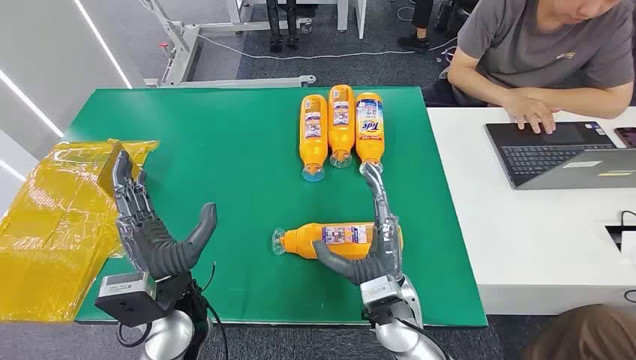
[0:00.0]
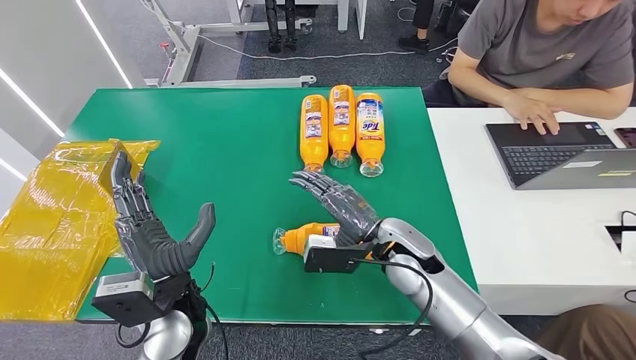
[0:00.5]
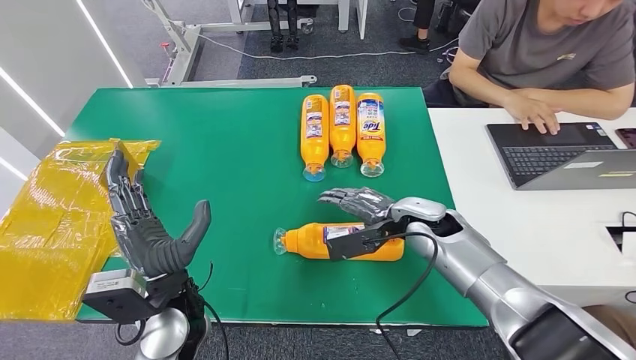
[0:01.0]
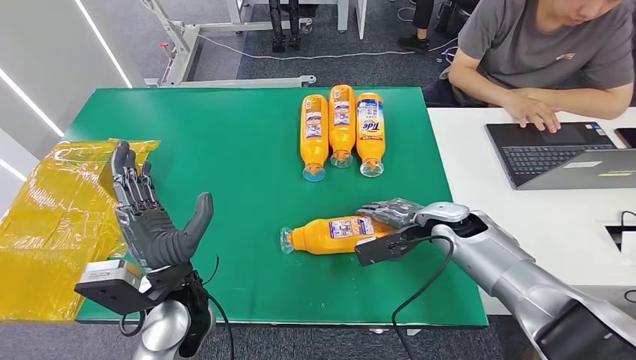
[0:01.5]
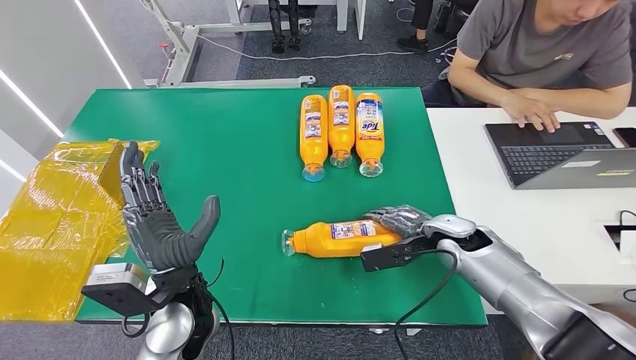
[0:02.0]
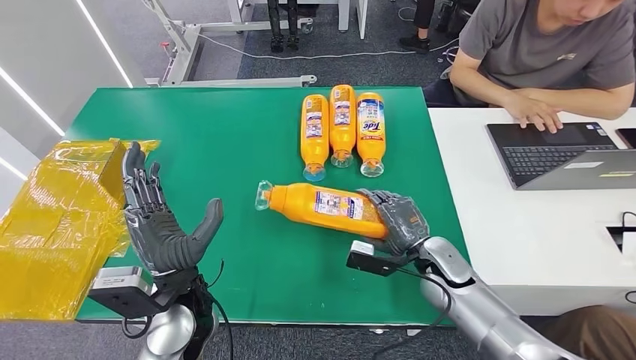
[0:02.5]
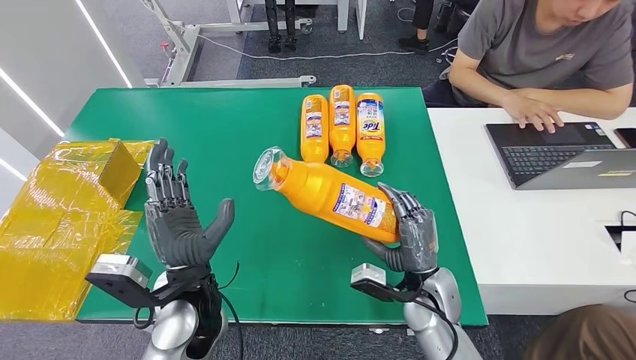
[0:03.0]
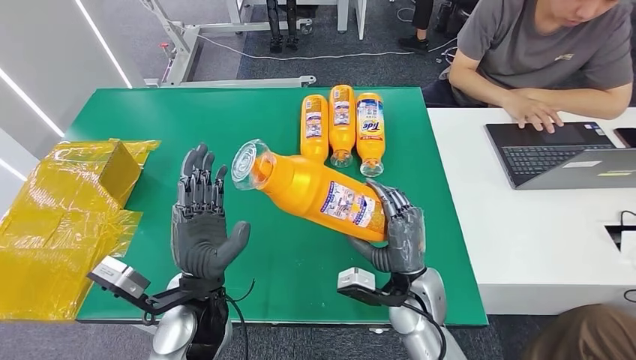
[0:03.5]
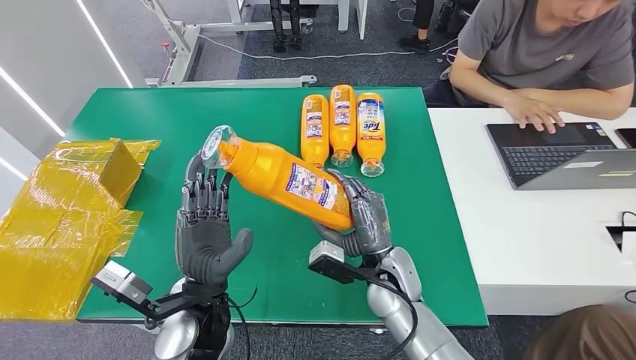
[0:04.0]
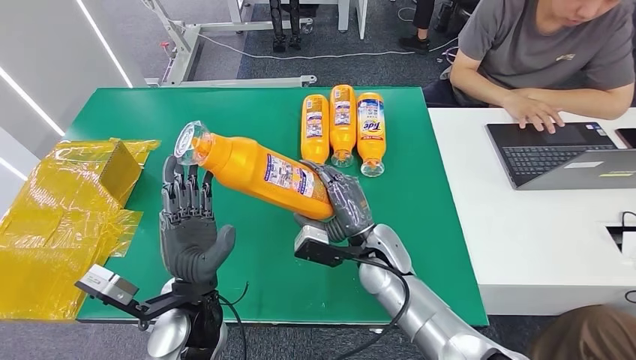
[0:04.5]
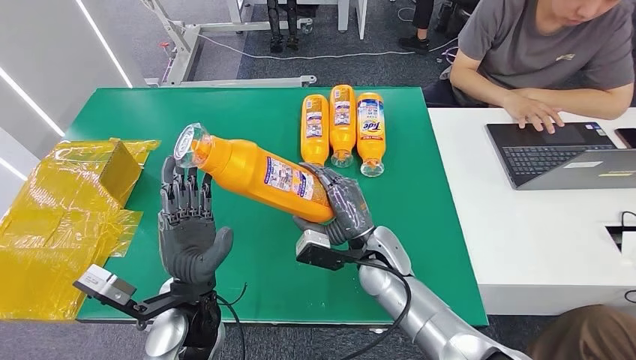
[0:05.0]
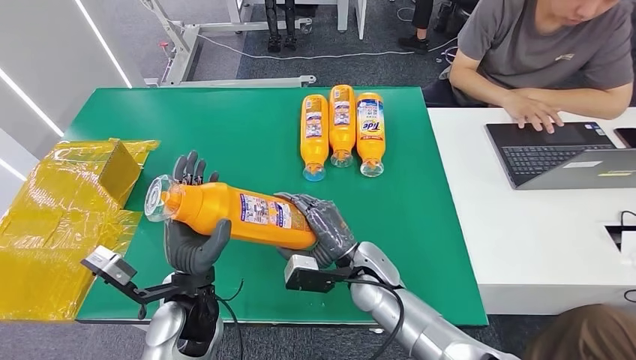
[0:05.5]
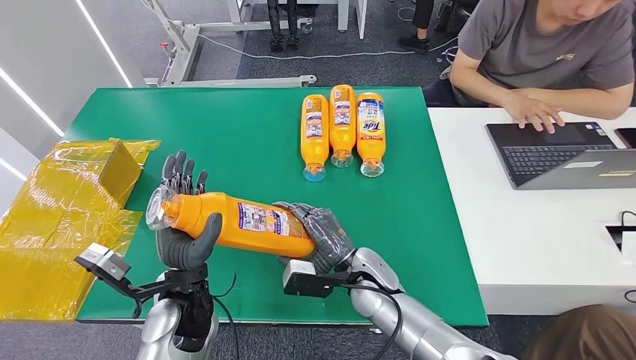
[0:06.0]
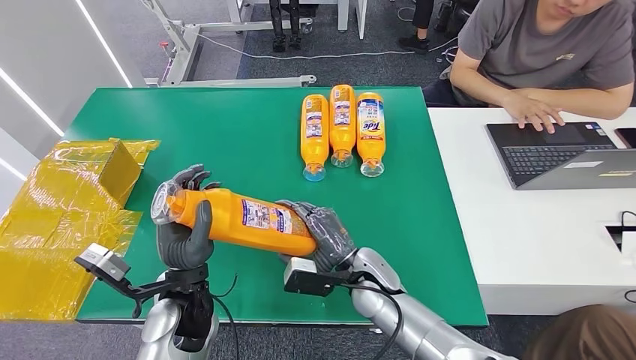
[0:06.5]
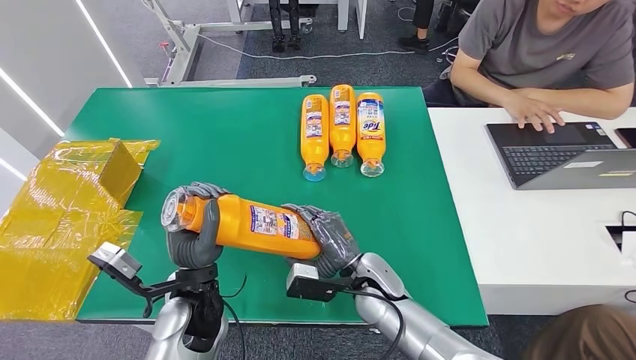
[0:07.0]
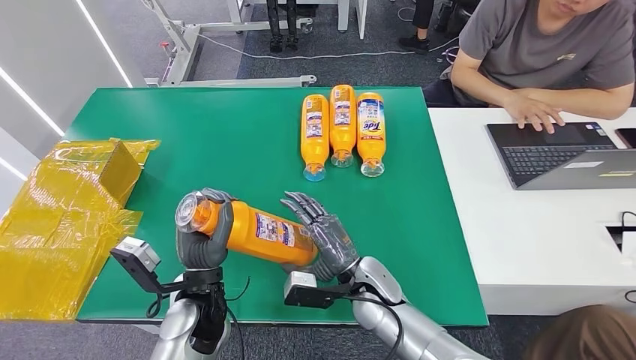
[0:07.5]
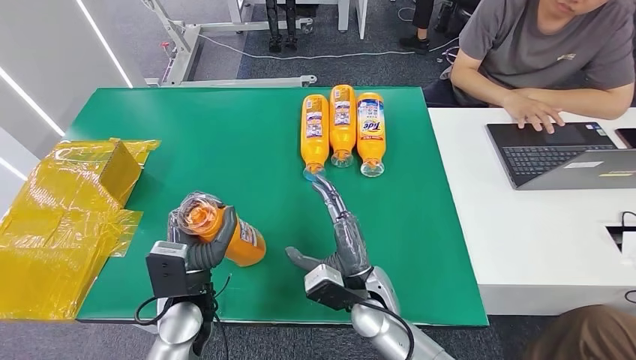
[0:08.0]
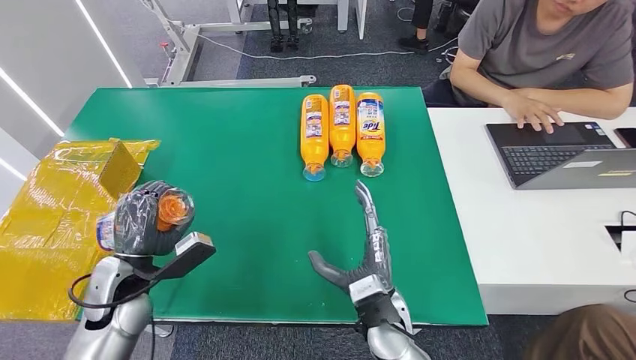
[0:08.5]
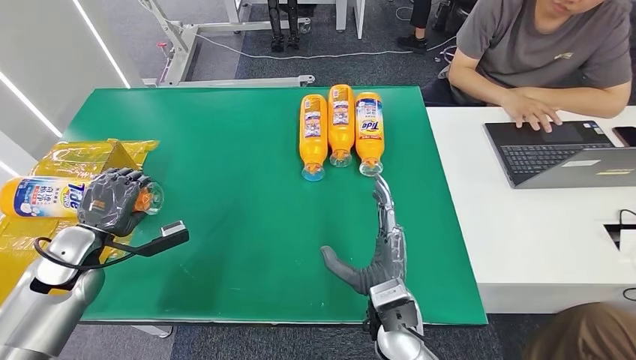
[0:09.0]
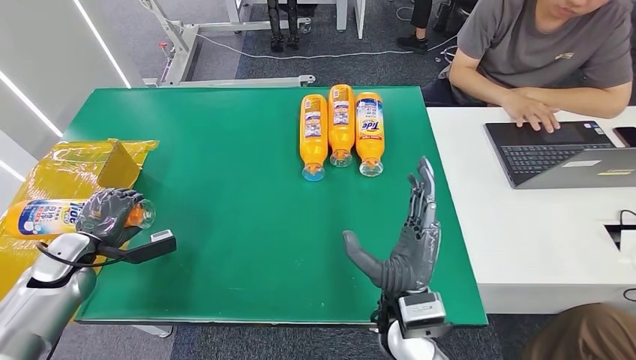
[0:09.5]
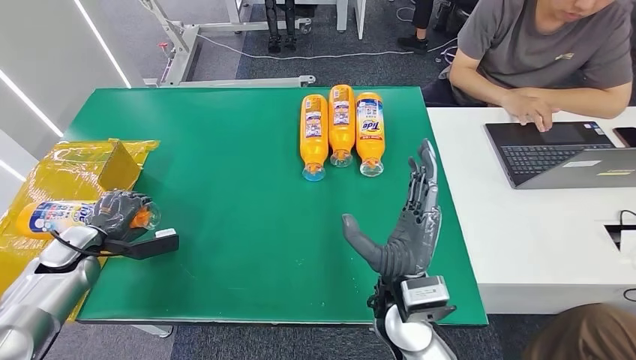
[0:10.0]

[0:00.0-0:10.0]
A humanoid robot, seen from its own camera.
Step, 0:00.0 to 0:04.0: Pick up the bottle from the table.
0:08.0 to 0:10.0: The right hand goes about 10 cm upward. Meanwhile the left hand goes some 30 cm to the left.

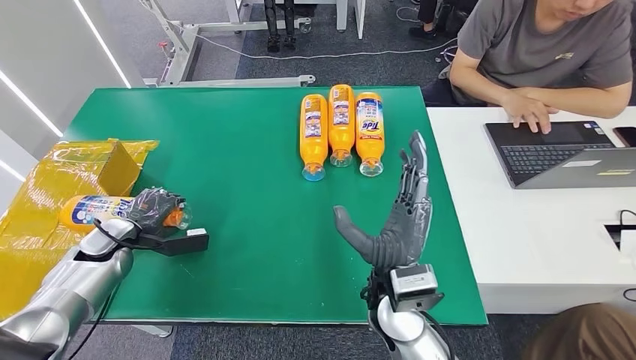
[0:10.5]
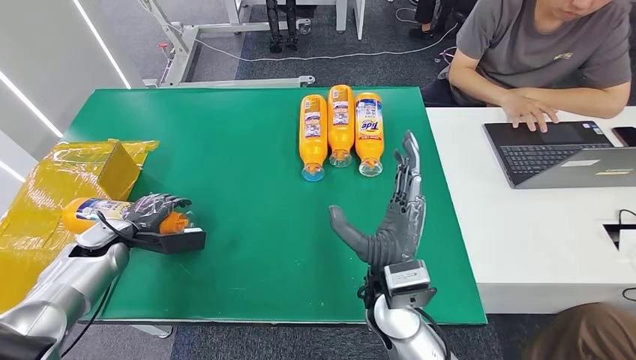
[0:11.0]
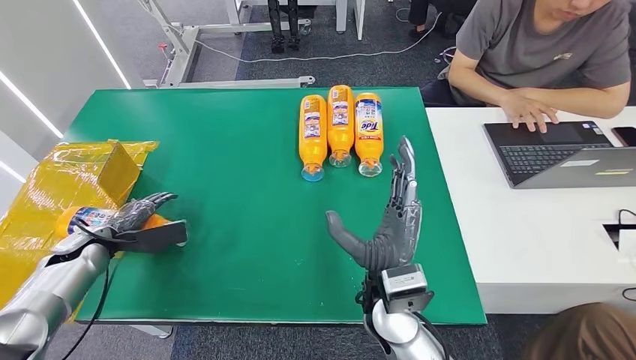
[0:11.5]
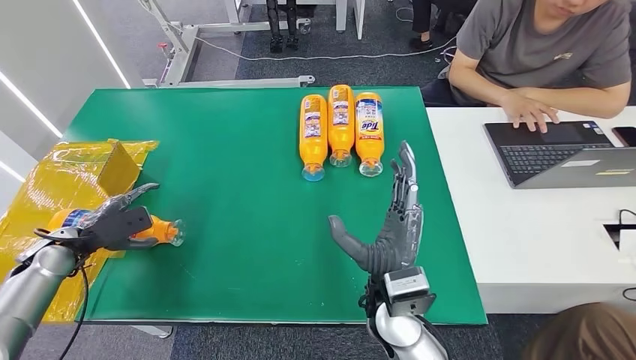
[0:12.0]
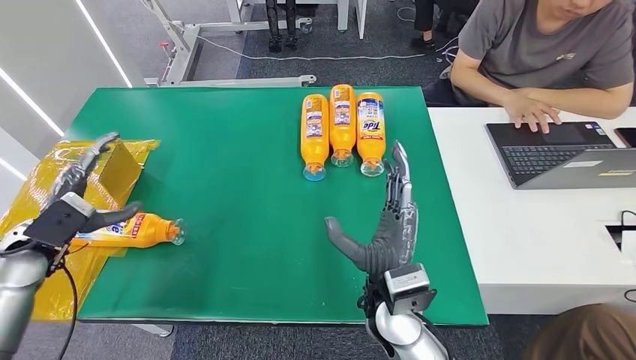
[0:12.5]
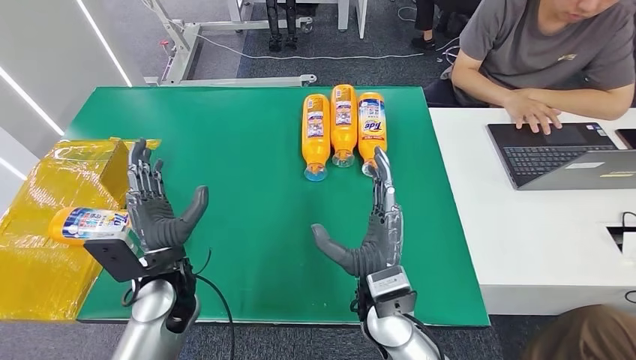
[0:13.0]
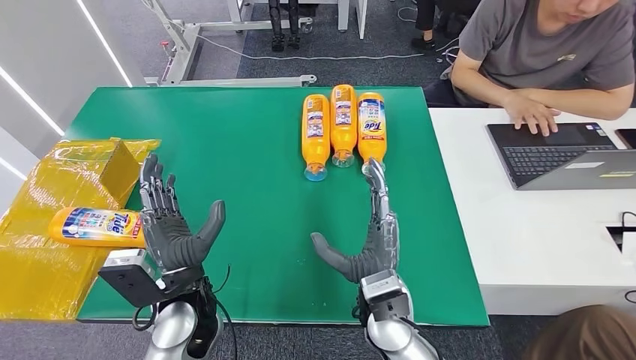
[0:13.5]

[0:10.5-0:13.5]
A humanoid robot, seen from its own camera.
Step, 0:10.5 to 0:13.0: Turn the bottle to the front side.
0:10.5 to 0:12.0: The left hand shifts some 5 cm to the left.
0:12.0 to 0:13.5: The left hand heads to the right, covering some 30 cm.
